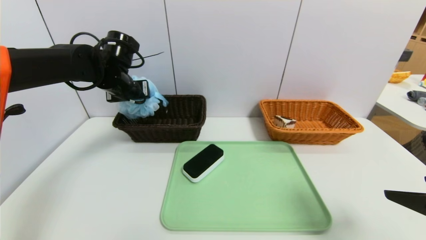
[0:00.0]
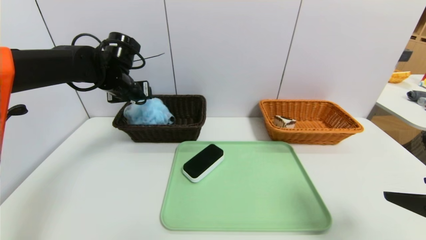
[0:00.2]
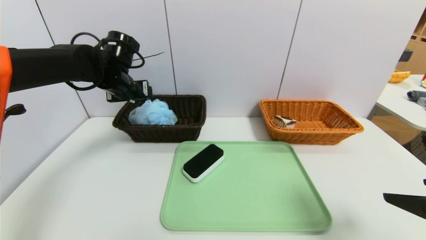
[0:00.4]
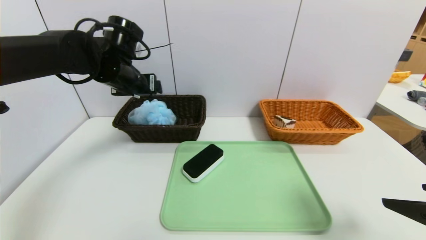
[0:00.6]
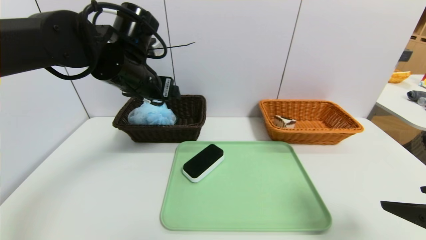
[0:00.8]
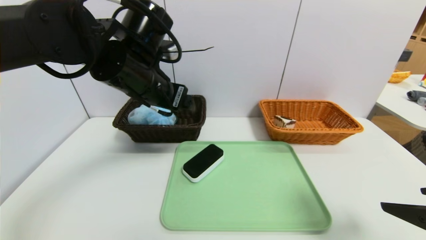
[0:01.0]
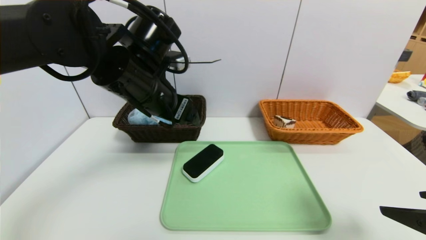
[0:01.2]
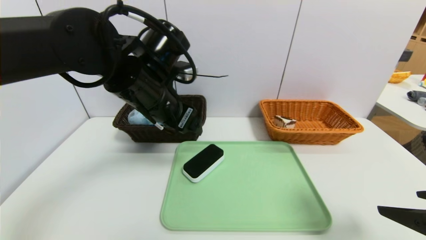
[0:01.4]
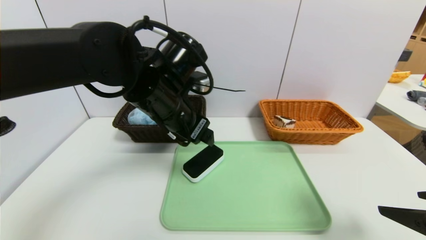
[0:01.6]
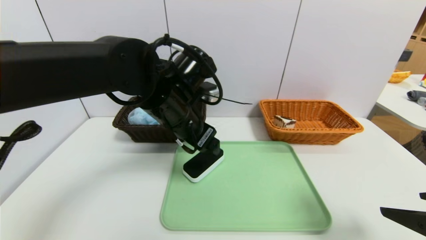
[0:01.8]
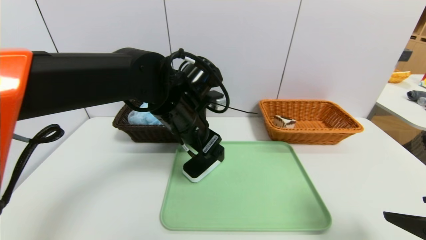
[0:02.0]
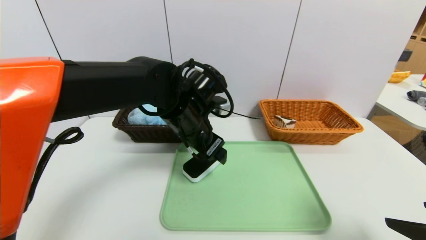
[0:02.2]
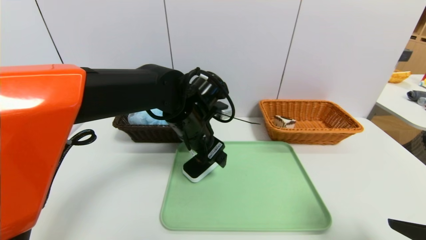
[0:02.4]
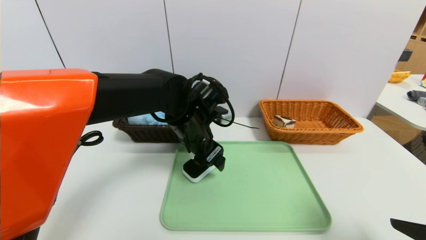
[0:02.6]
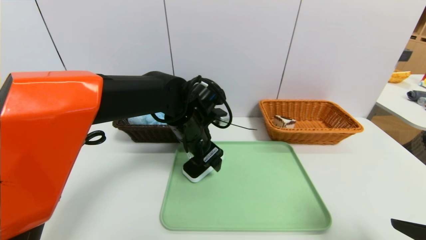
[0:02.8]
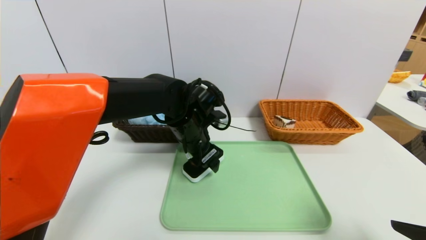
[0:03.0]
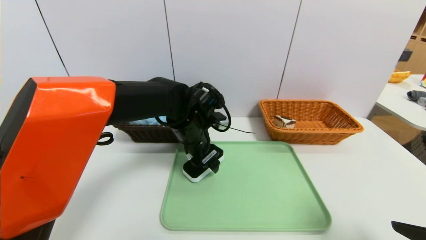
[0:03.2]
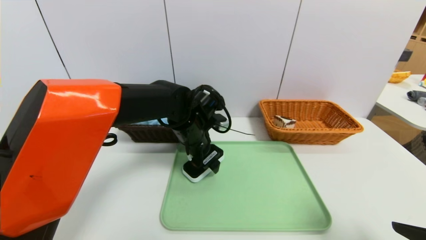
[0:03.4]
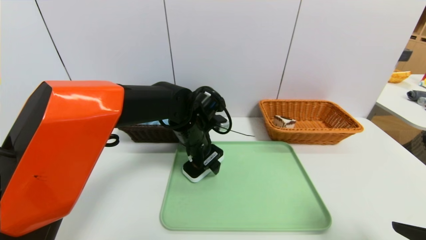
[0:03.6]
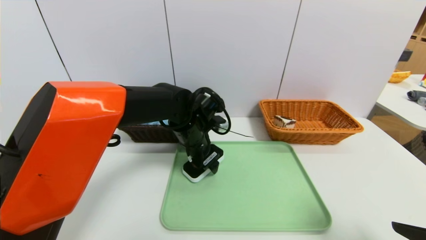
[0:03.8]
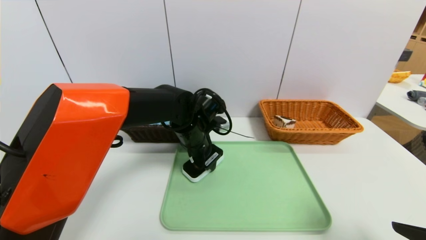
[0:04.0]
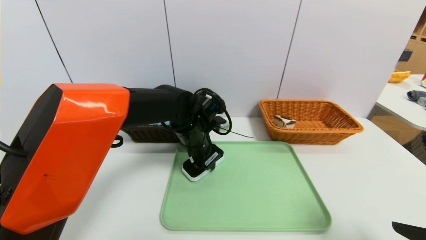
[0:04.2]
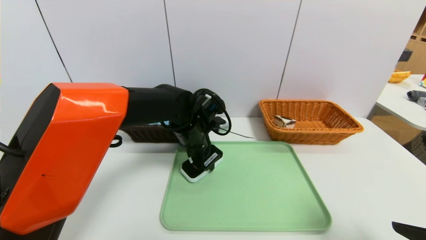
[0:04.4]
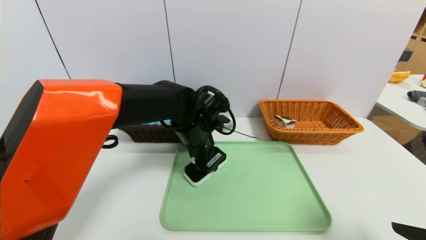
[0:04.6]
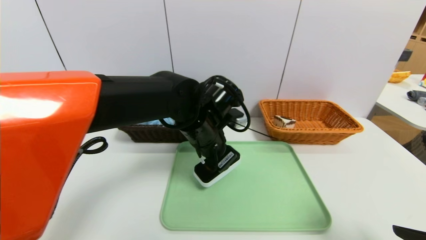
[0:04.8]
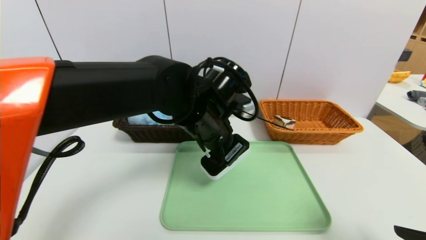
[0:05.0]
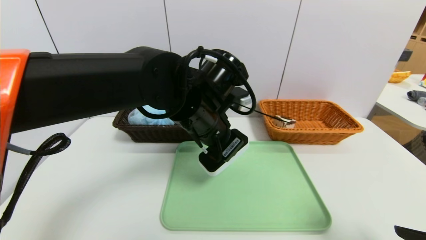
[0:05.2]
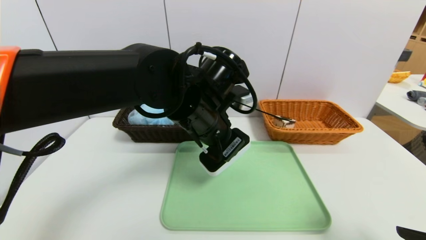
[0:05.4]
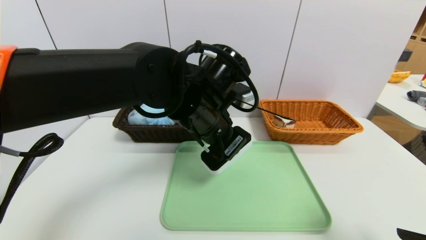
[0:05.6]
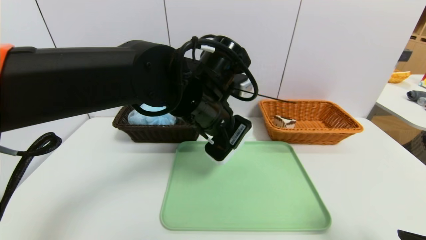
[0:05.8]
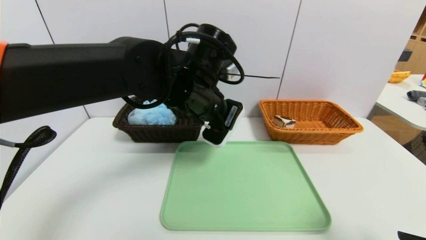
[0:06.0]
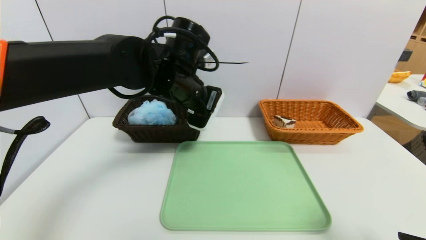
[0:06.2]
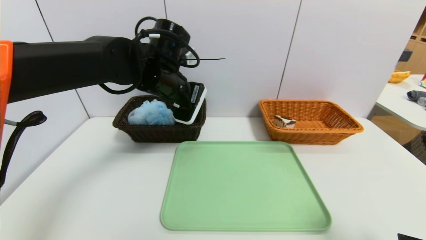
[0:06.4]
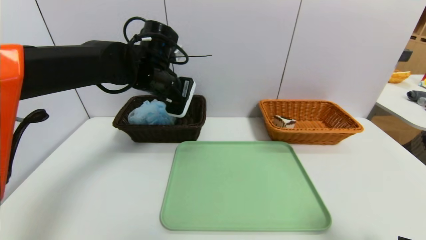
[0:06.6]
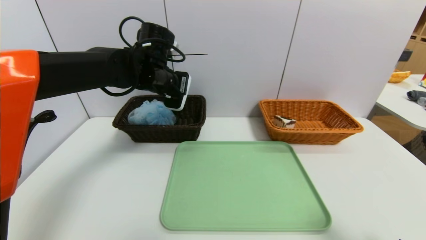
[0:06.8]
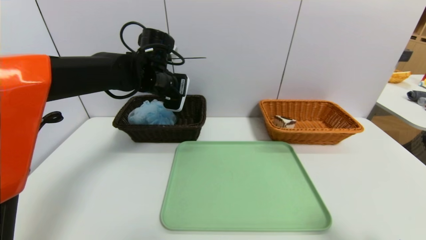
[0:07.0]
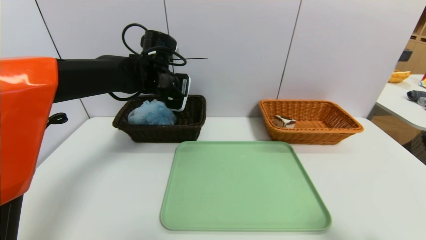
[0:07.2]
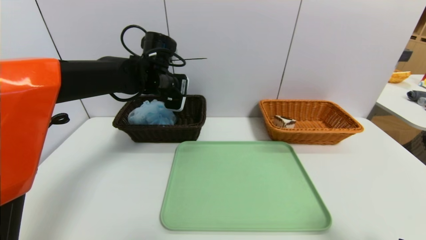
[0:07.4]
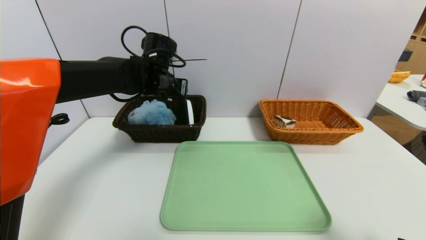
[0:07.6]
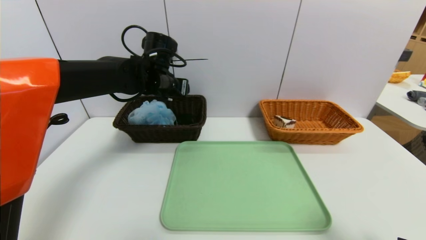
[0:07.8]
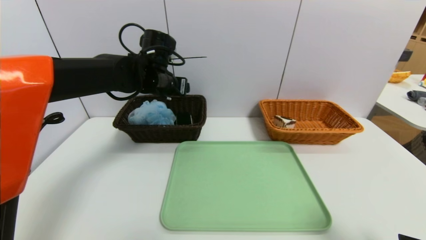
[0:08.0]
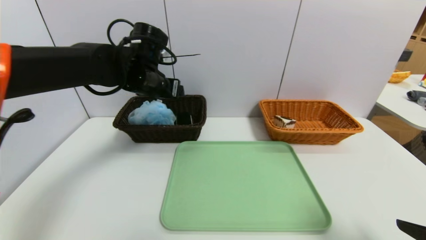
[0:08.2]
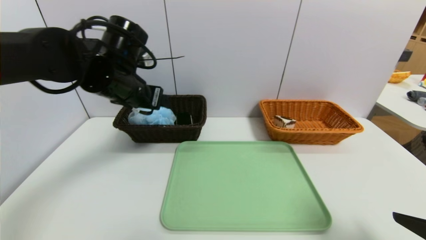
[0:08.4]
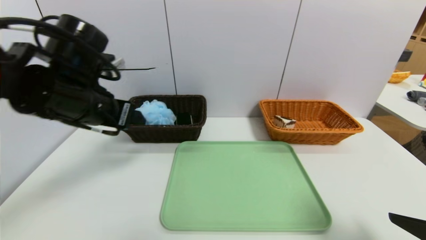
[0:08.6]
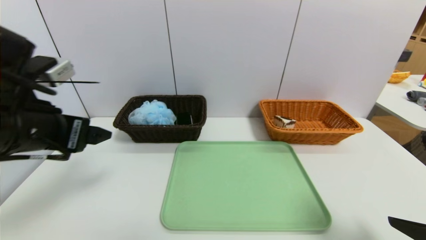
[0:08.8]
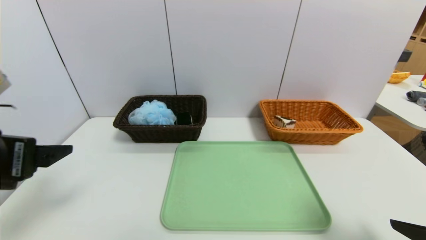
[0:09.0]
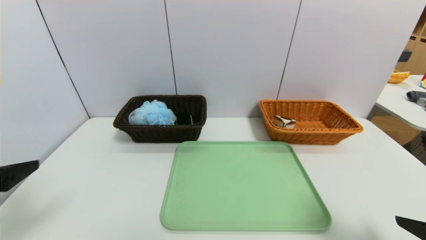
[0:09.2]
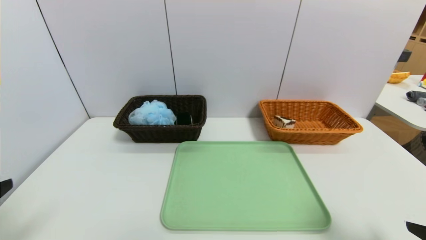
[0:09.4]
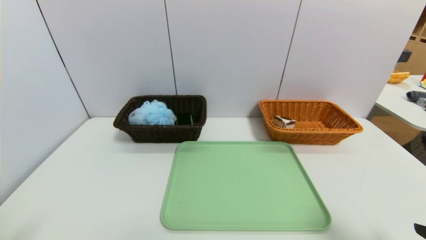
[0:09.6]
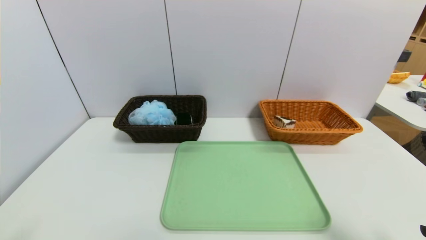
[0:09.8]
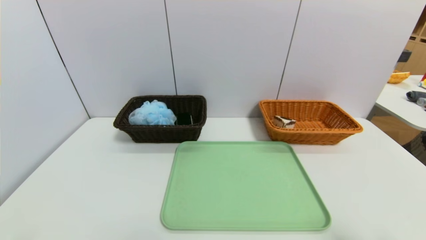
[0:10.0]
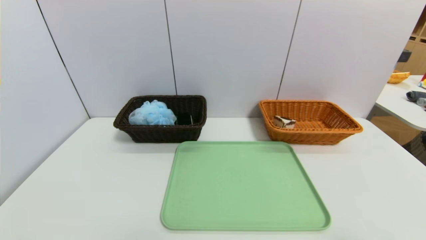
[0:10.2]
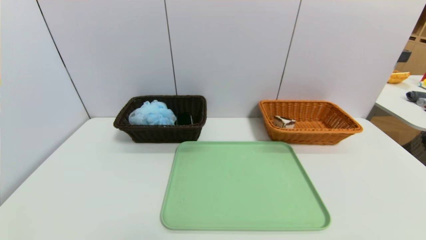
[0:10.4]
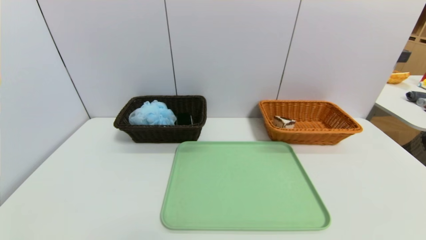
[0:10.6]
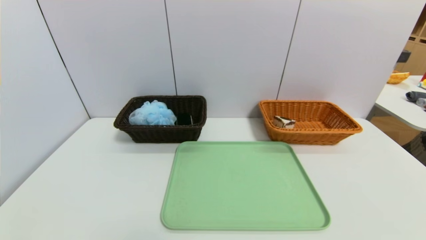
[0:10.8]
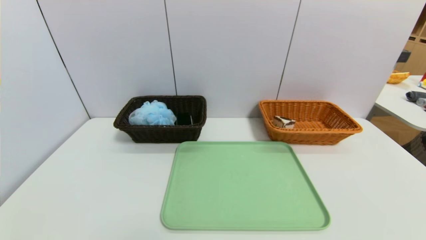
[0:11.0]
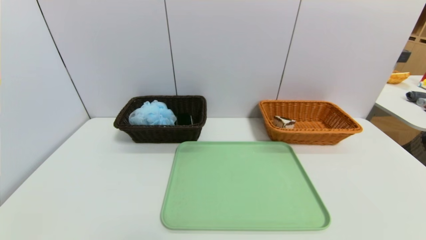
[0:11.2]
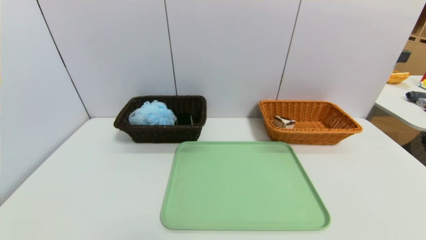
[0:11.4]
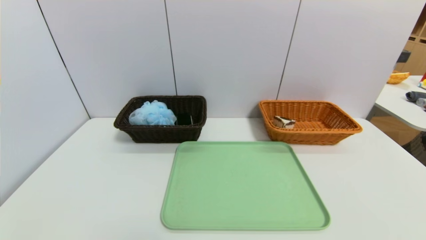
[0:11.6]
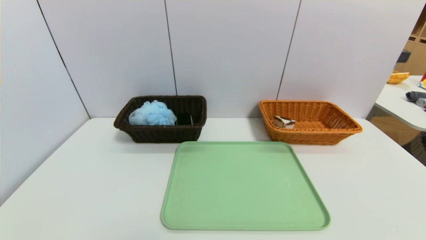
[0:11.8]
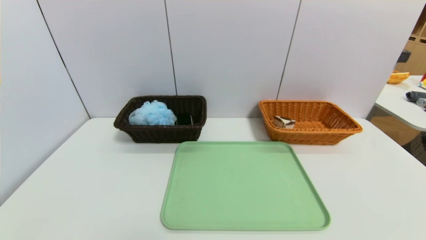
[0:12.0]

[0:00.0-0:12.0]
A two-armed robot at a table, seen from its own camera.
Task of the whole recording: place the food in the right basket with the right gripper, and place the non food items in the left basket with the left gripper.
Step, 0:00.6 to 0:08.0: Grasp the white eraser and put it in the left basket.
0:00.0 to 0:01.6: The left gripper is displaced to the right and backward by about 20 cm, and opens.
0:01.6 to 0:03.0: The left gripper travels downward and forward by roughly 10 cm.
0:03.0 to 0:04.4: The left gripper closes its fingers.
0:04.4 to 0:06.0: The left gripper travels upward and backward by about 15 cm.
0:06.0 to 0:07.6: The left gripper shifts roughly 15 cm forward and to the left.
0:07.6 to 0:09.0: The left gripper is displaced backward and to the left by approximately 30 cm, and opens.
0:09.0 to 0:10.4: The right gripper is displaced backward by roughly 10 cm; the left gripper shifts roughly 20 cm backward and downward.

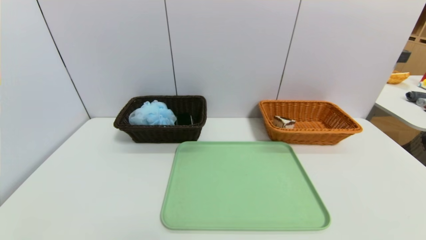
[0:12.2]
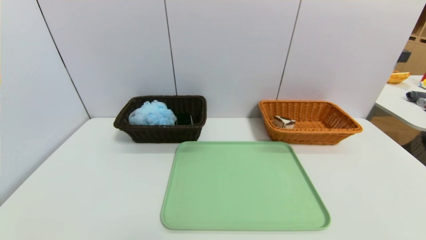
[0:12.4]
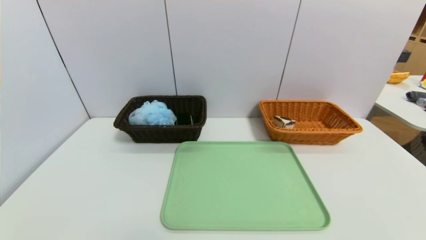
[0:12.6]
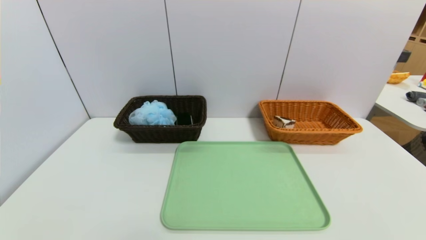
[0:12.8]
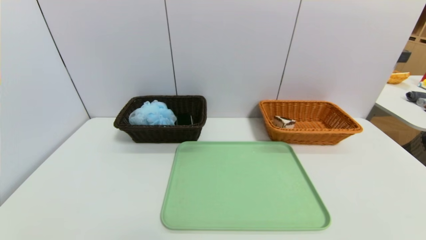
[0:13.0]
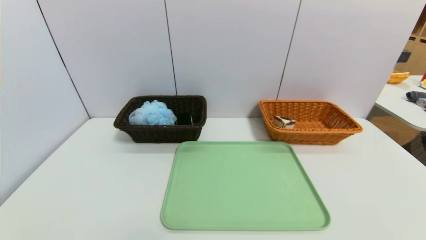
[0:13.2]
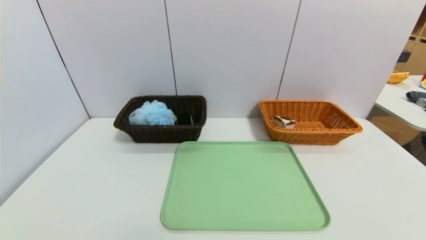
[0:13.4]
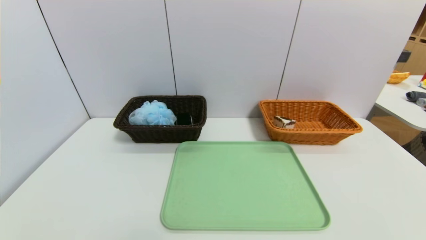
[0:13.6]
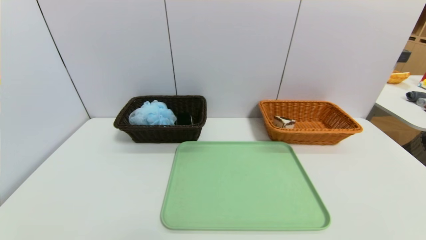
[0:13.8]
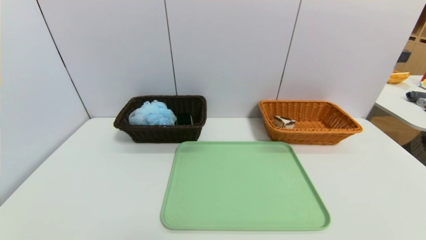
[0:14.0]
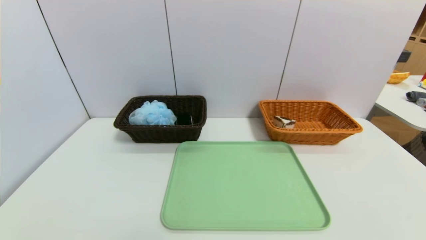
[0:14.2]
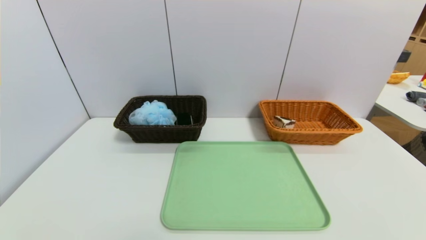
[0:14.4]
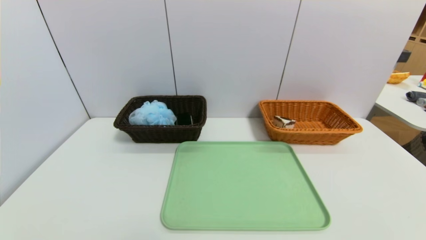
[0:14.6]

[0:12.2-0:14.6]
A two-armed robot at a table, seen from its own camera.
Task of the whole recording: place the food in the right basket with the right gripper, and place the non food items in the left basket with the left gripper.
0:13.4 to 0:14.6: Neither gripper changes place.
